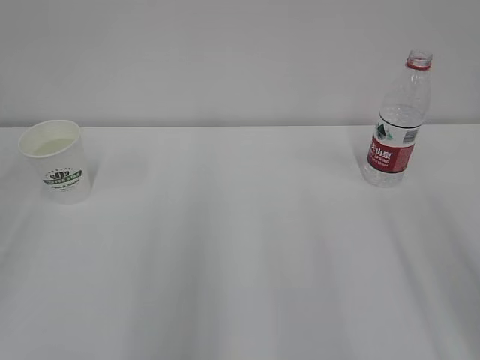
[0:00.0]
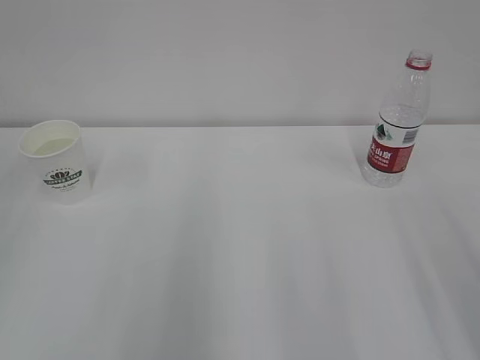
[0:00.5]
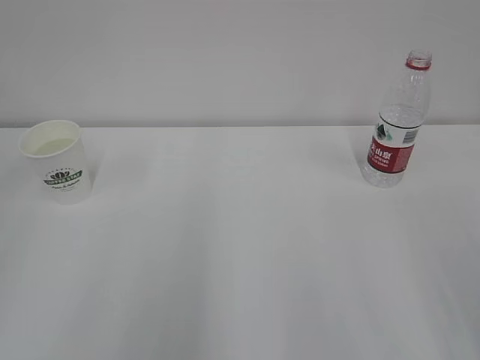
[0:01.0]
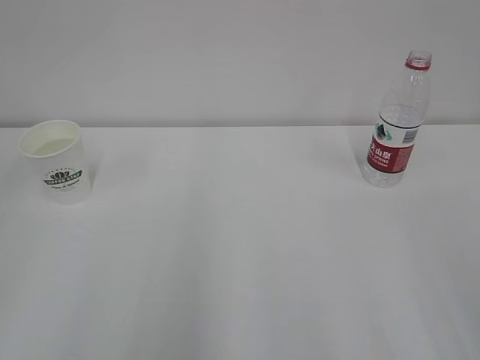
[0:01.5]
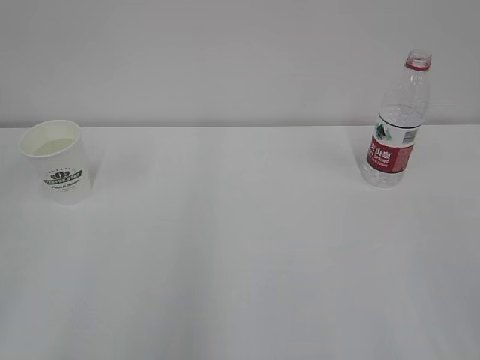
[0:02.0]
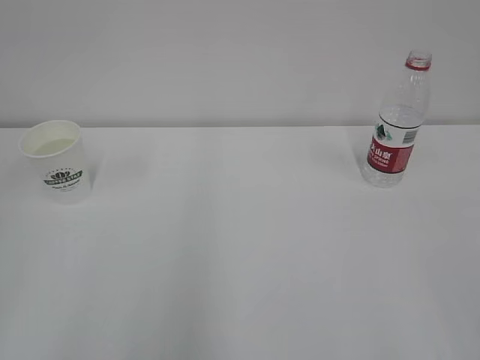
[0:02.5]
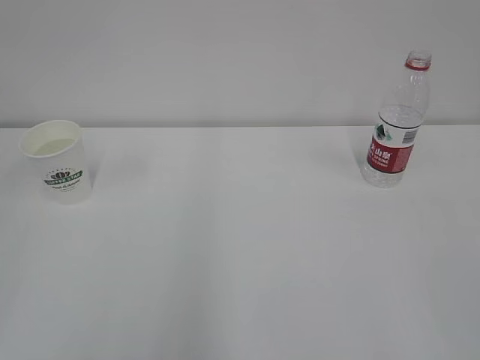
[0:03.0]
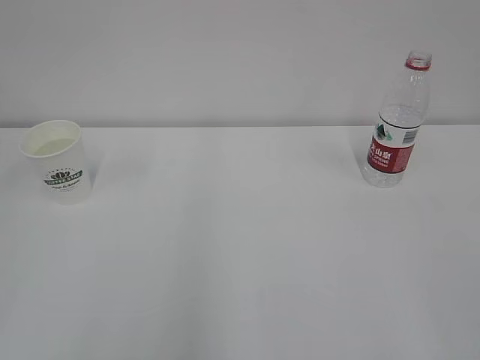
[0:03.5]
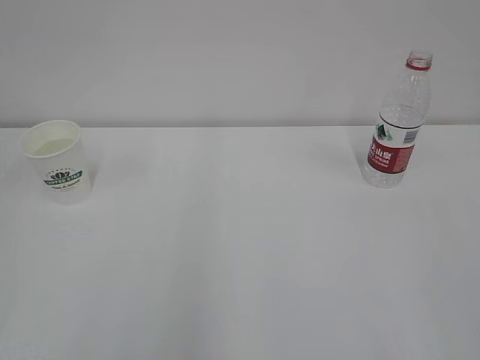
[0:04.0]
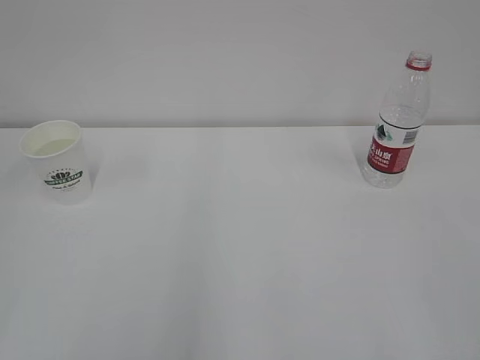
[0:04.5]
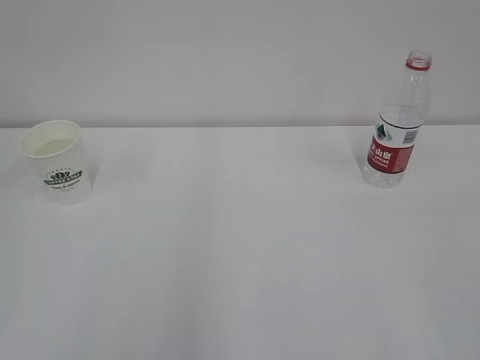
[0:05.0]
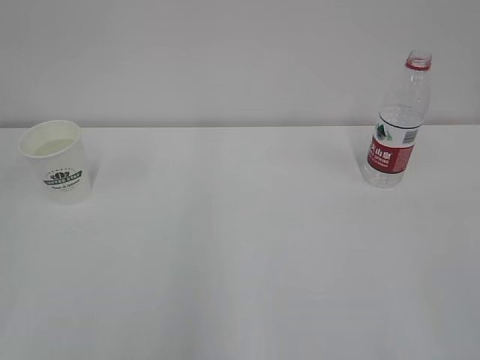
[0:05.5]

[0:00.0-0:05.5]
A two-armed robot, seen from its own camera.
0:03.5 to 0:05.5: Both grippers stay about where they are.

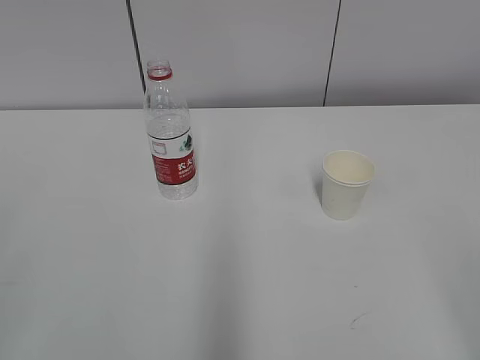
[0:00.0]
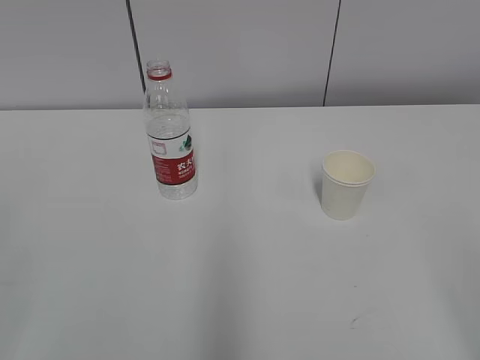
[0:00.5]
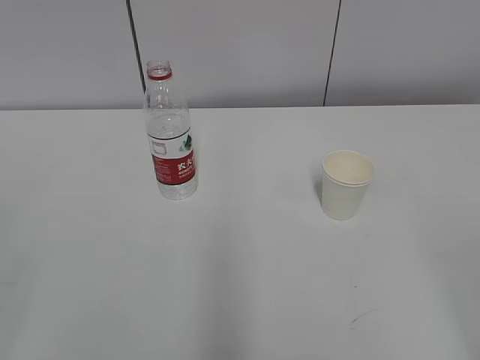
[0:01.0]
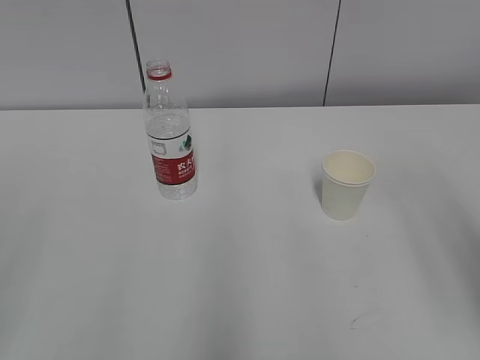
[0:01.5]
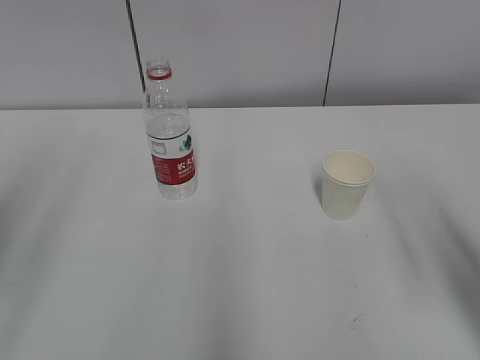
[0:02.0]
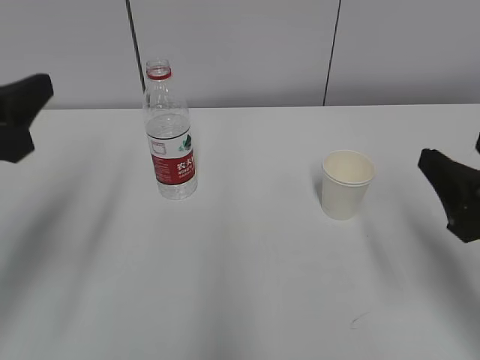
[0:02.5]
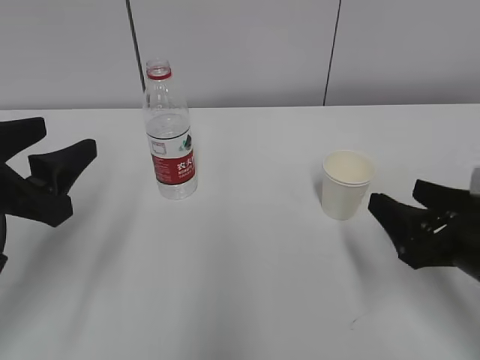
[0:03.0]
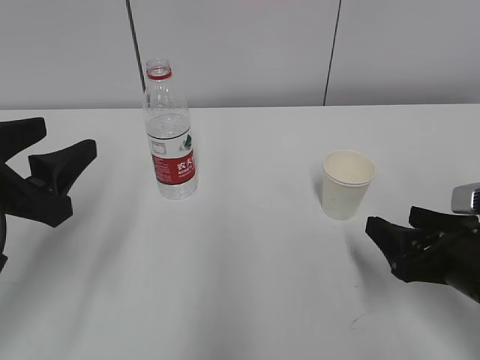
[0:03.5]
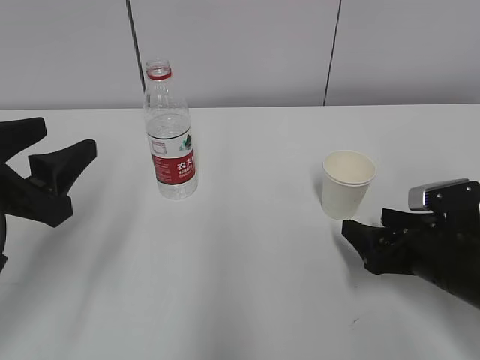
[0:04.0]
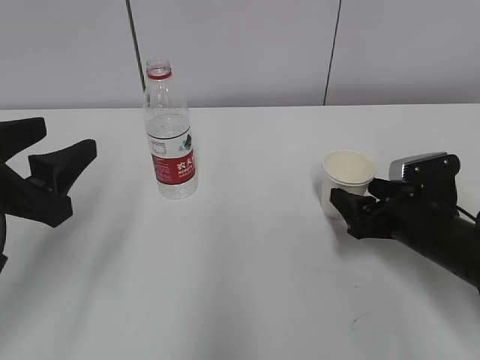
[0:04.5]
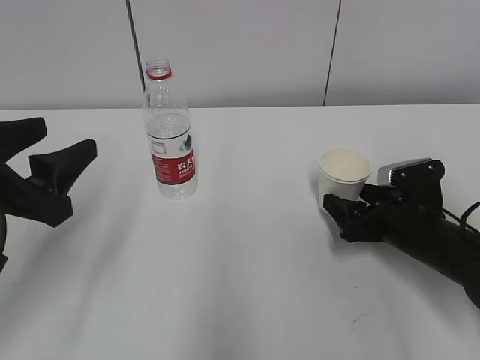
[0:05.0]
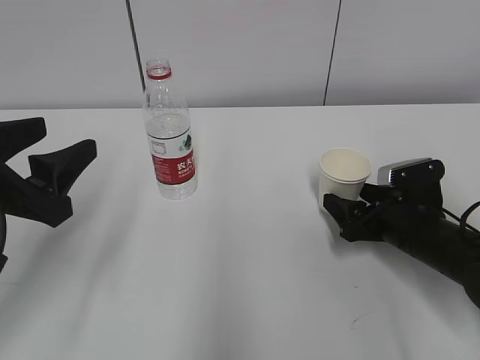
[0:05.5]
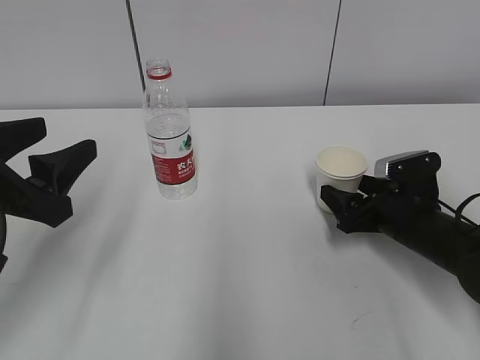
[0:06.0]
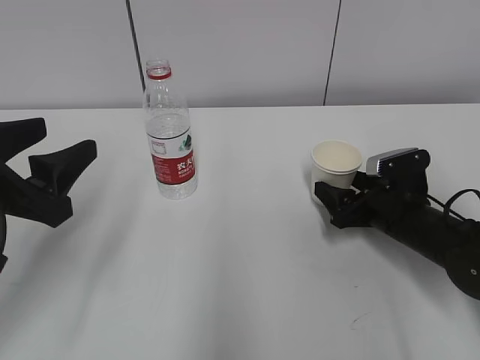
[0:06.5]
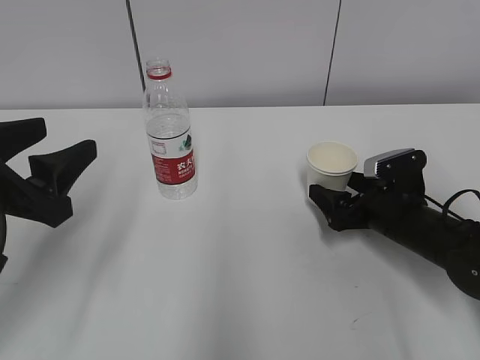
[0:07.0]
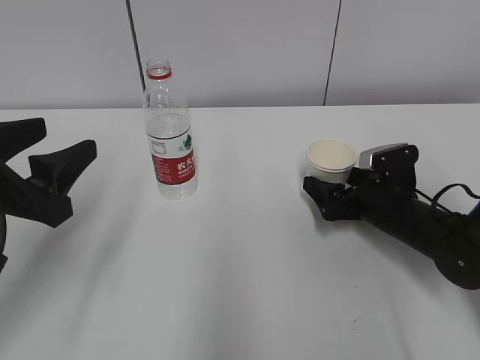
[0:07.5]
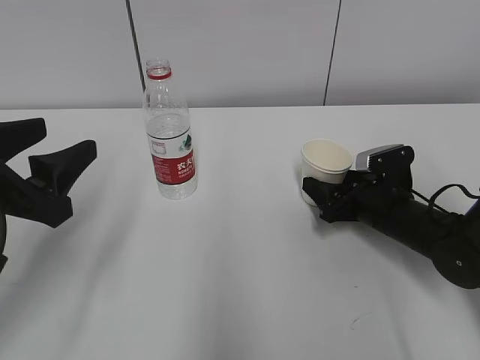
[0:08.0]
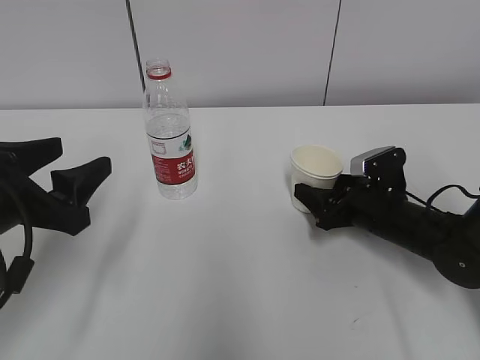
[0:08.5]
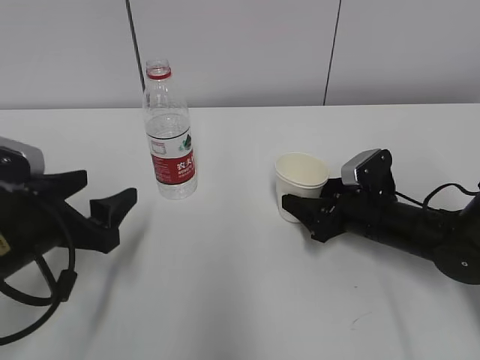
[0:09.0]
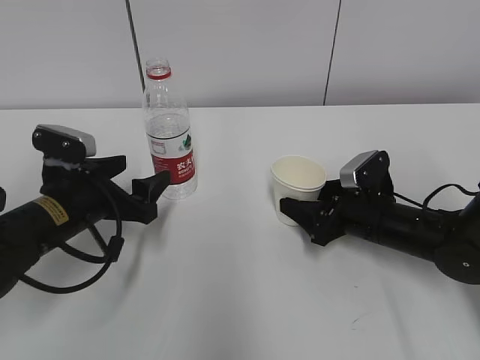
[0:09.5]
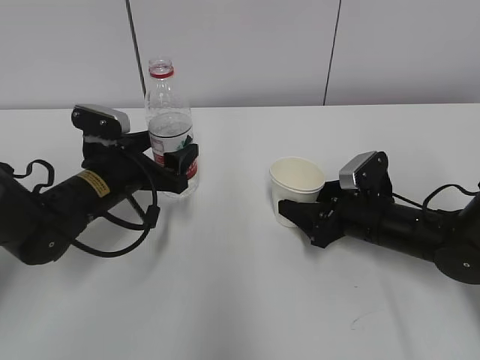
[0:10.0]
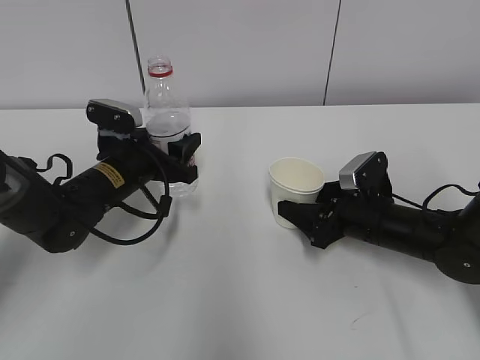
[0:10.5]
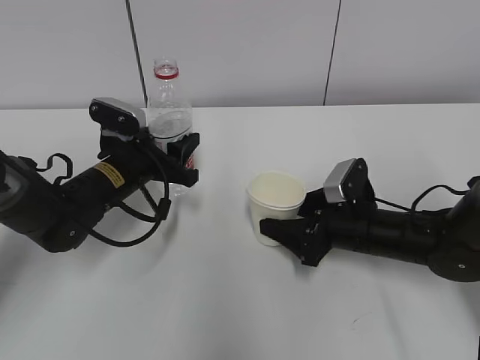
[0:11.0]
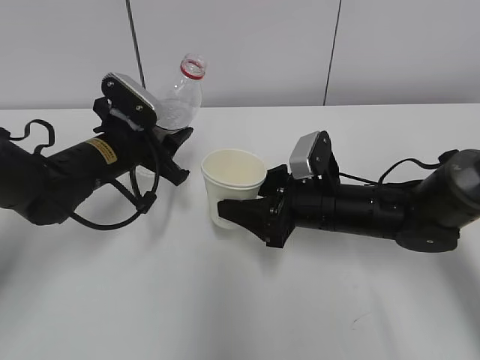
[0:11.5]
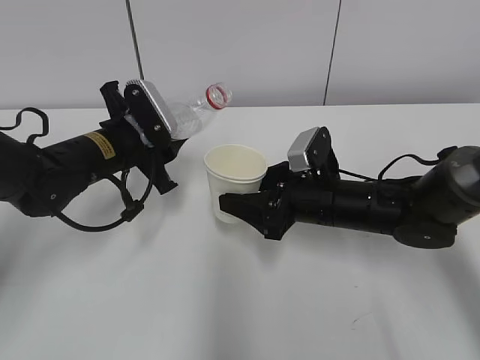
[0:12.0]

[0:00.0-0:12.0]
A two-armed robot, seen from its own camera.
Step, 0:00.0 to 0:06.5: Grab the paper cup with the right hand.
Step, 0:07.0 to 0:09.0: Grab the water bottle with the left hand.
Step, 0:09.5 to 0:11.5: Lift the paper cup with the right hand.
0:02.0 to 0:04.0: The right gripper heads downward and forward, covering approximately 20 cm, while the left gripper shifts about 15 cm downward, forward and to the right.
0:04.0 to 0:06.0: The right gripper moves forward, approximately 5 cm.
0:06.0 to 0:08.0: The right gripper closes.
0:08.0 to 0:10.0: The left gripper heads forward, downward and to the right, covering approximately 20 cm.
0:10.0 to 0:12.0: The right gripper travels to the left by some 5 cm. The left gripper closes up.

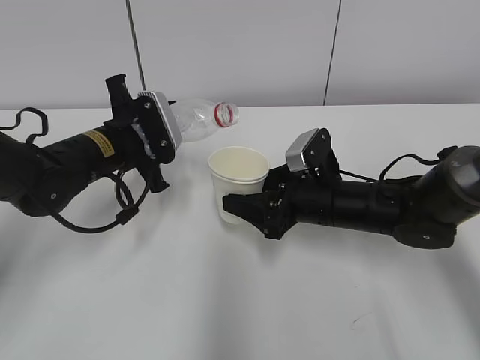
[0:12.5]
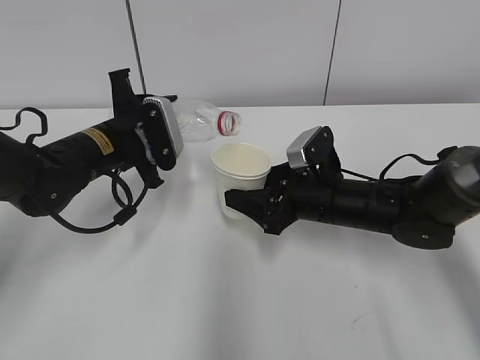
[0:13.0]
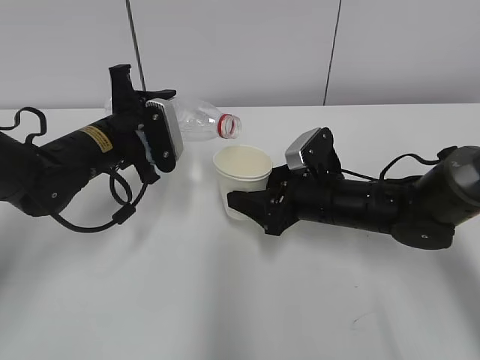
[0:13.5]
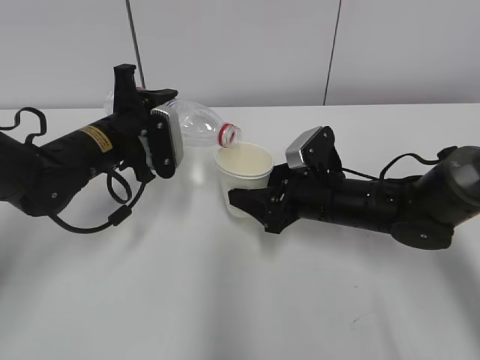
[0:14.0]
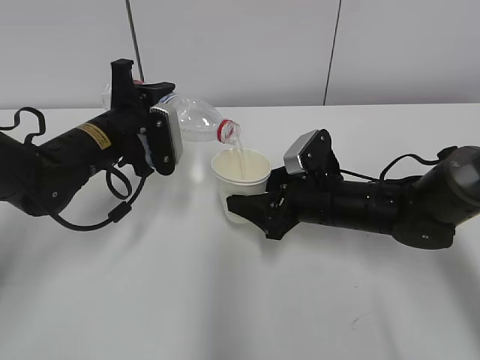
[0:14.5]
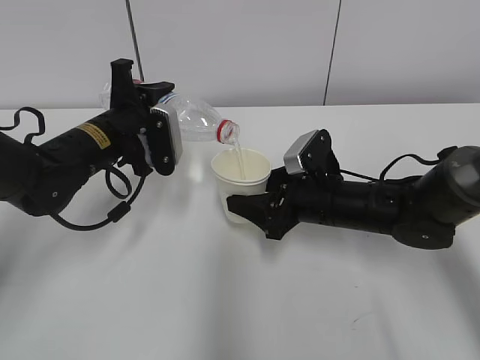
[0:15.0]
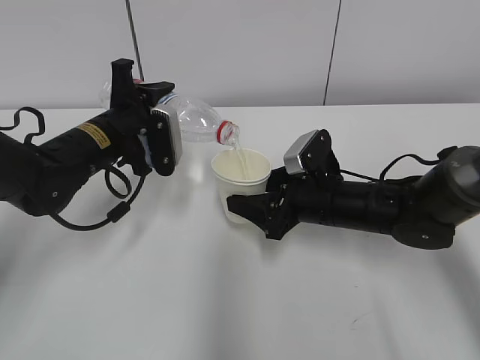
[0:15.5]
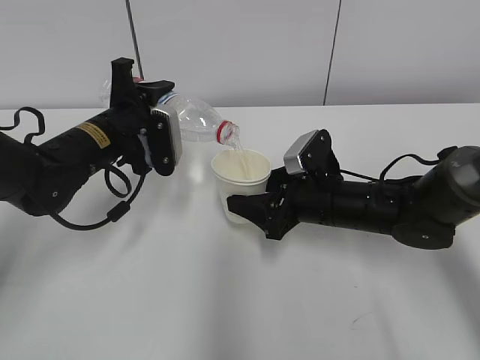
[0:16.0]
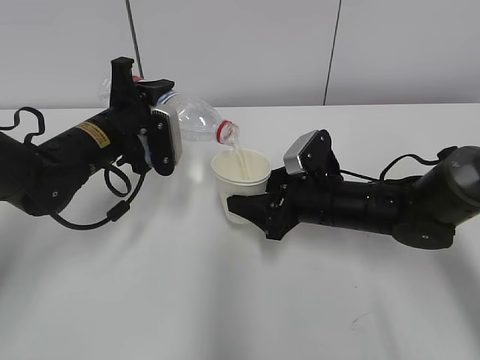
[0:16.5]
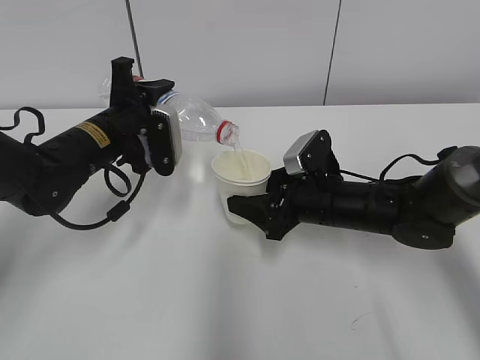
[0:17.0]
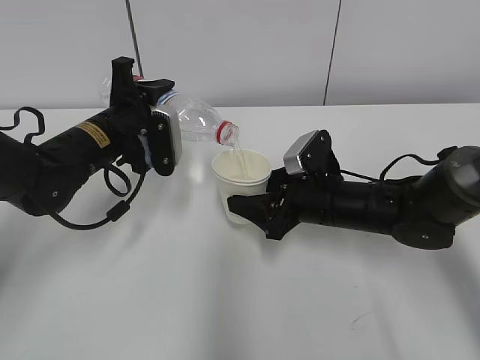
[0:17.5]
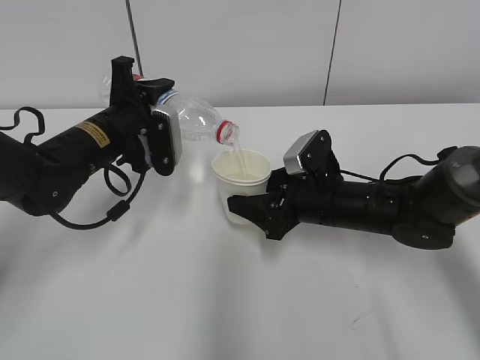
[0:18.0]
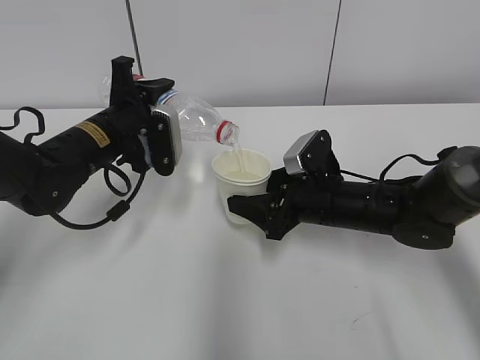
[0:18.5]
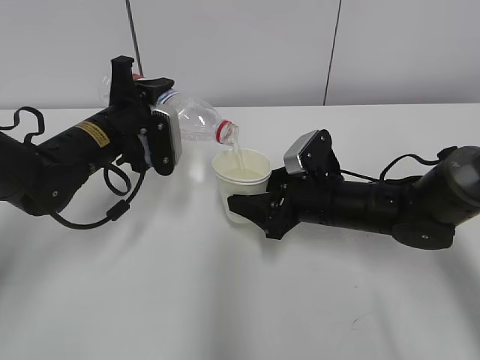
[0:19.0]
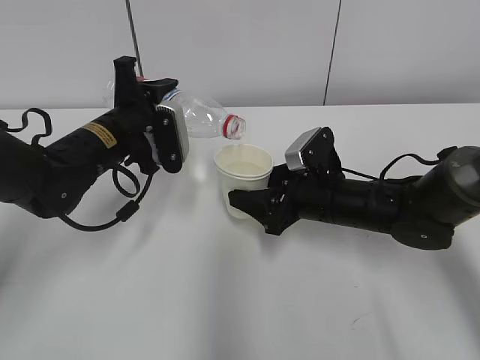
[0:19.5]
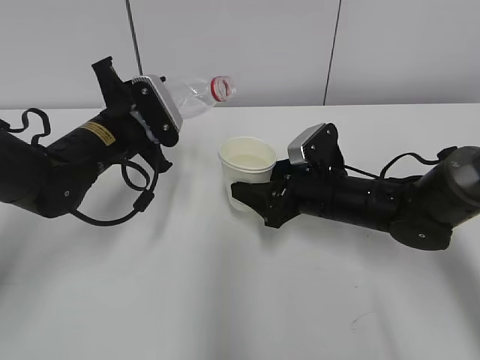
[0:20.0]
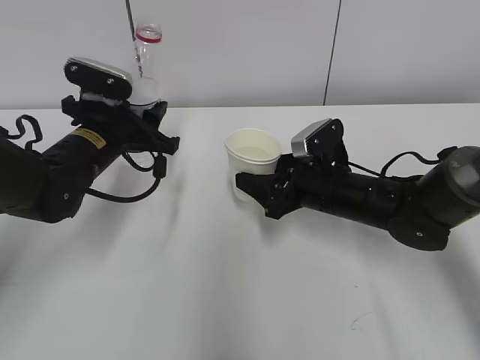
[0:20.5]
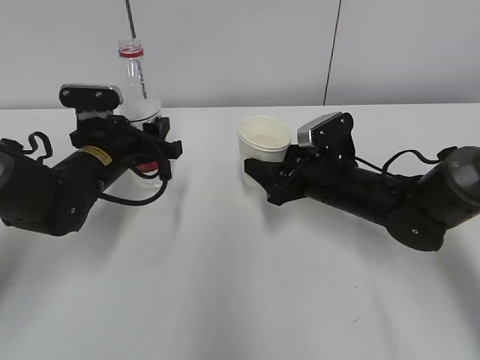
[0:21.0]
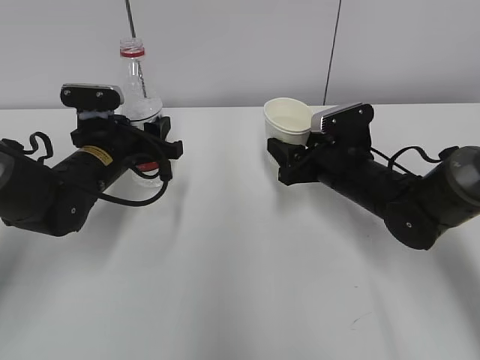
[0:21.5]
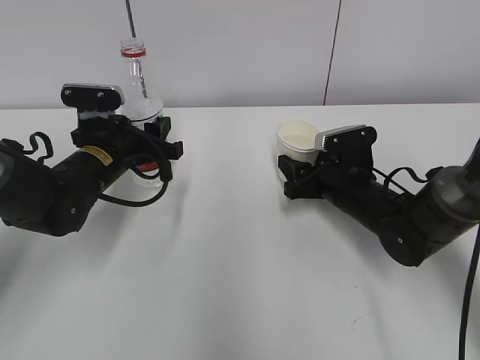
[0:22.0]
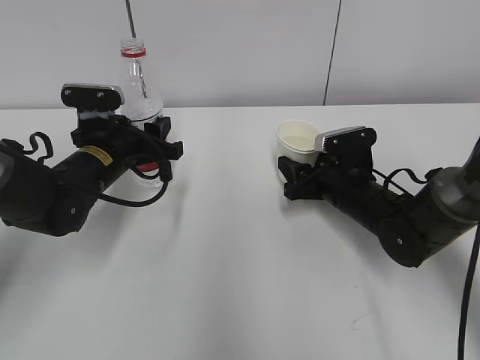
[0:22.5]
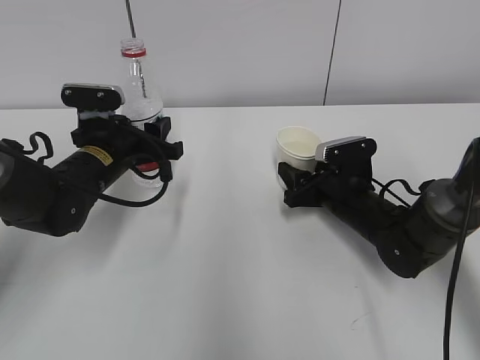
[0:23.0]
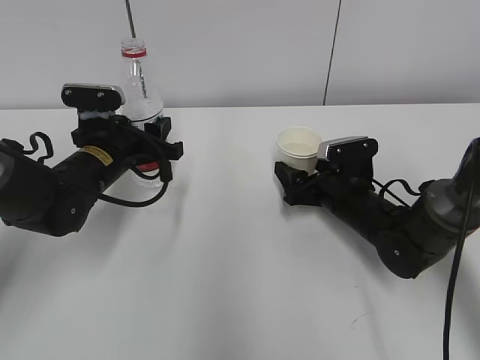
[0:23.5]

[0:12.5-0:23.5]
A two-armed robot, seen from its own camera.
Step, 0:12.5 to 0:16.0: Fill water with the right hand.
Step, 0:12.5 to 0:16.0: Pour water with the left hand.
Step, 0:19.5 to 0:20.5: Place the water bottle with the left hand.
0:14.5 to 0:18.0: Both grippers stay put.
0:21.5 to 0:23.5: The right gripper heads downward, covering some 5 cm, and opens.
